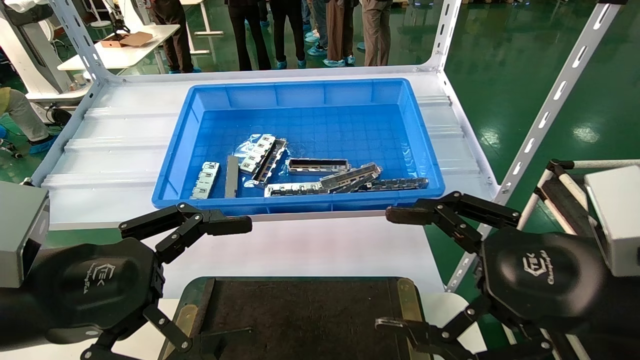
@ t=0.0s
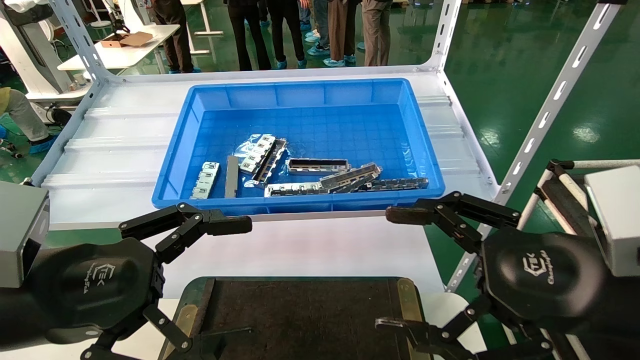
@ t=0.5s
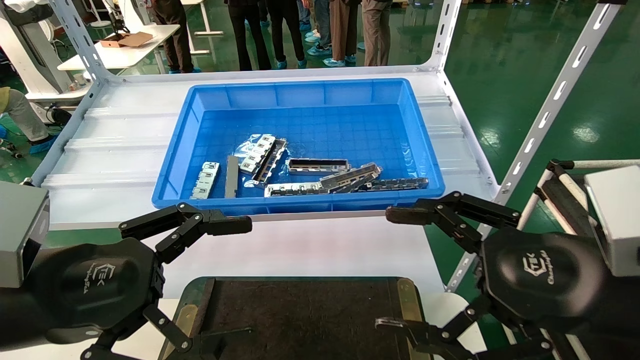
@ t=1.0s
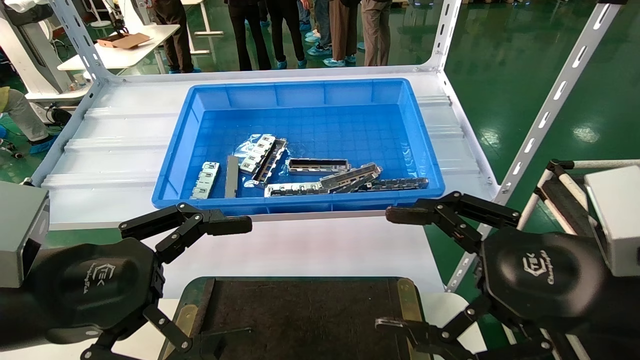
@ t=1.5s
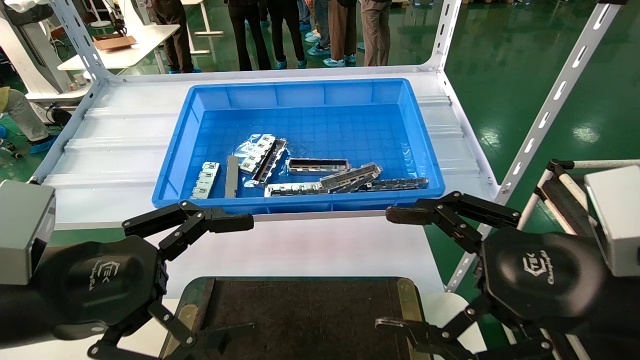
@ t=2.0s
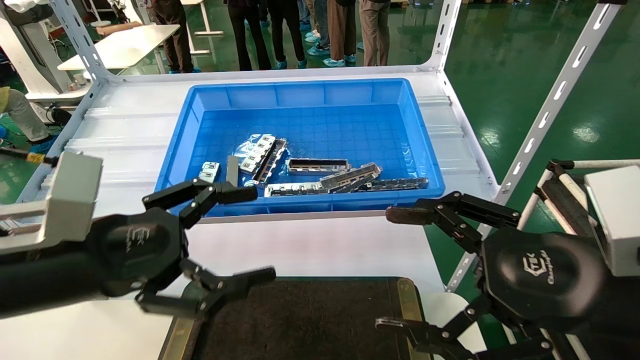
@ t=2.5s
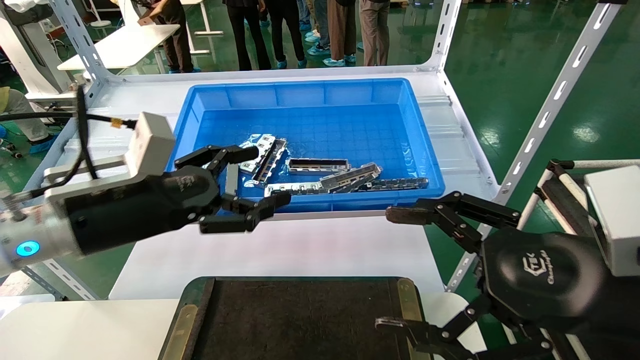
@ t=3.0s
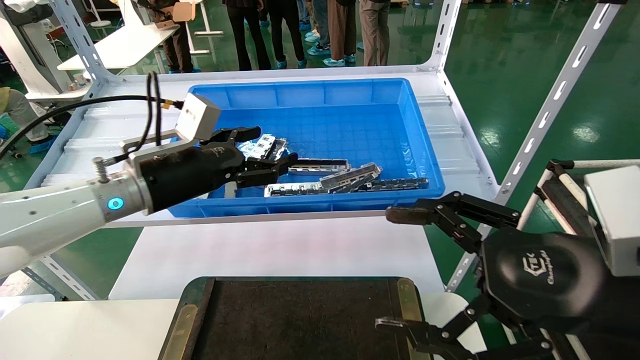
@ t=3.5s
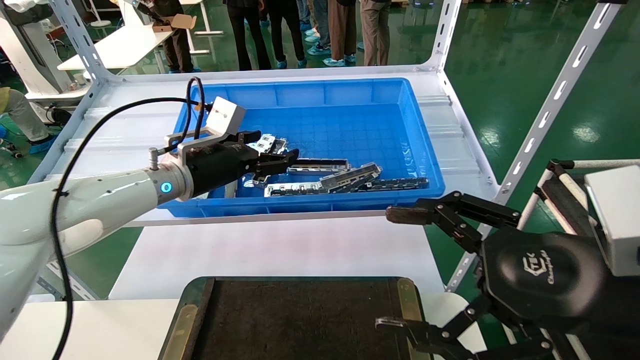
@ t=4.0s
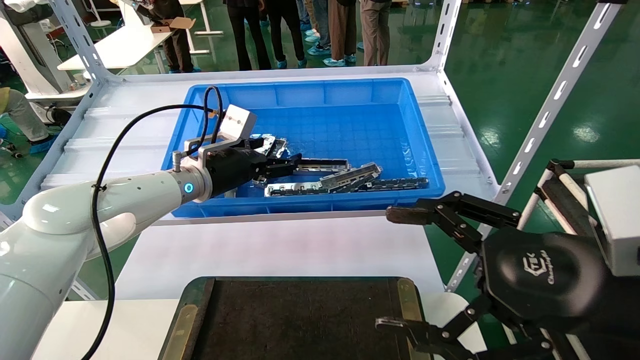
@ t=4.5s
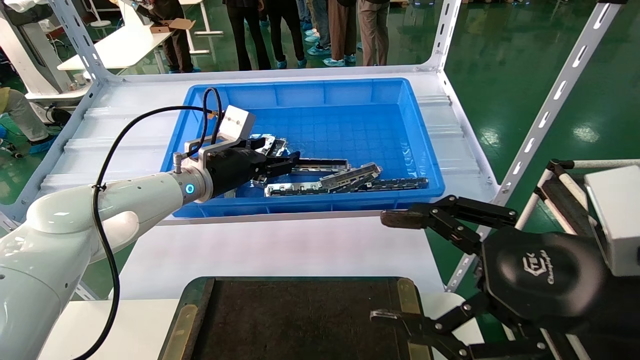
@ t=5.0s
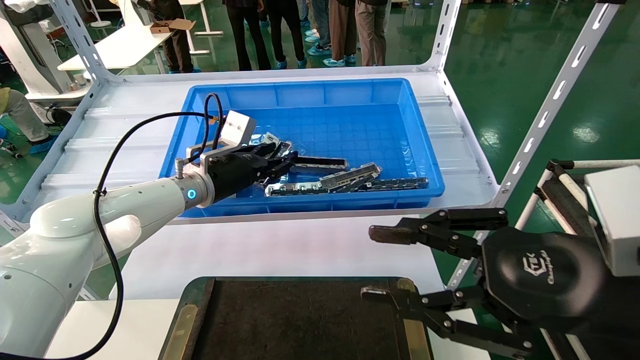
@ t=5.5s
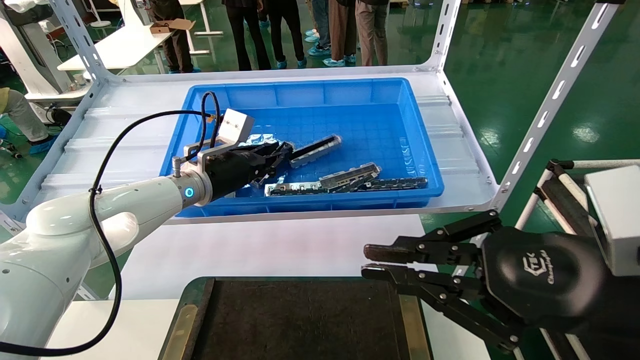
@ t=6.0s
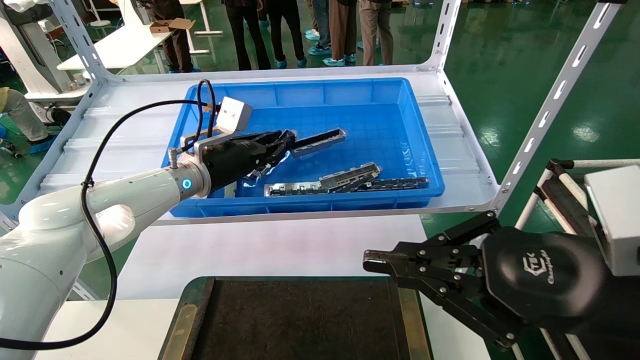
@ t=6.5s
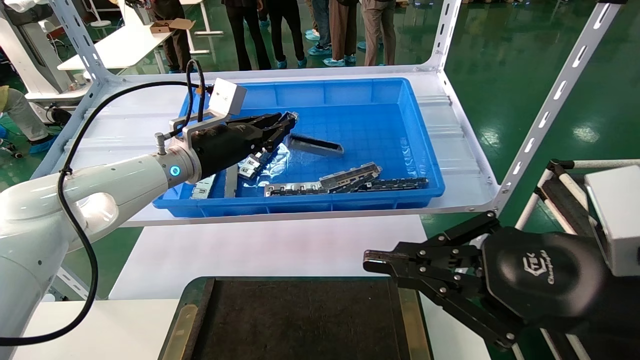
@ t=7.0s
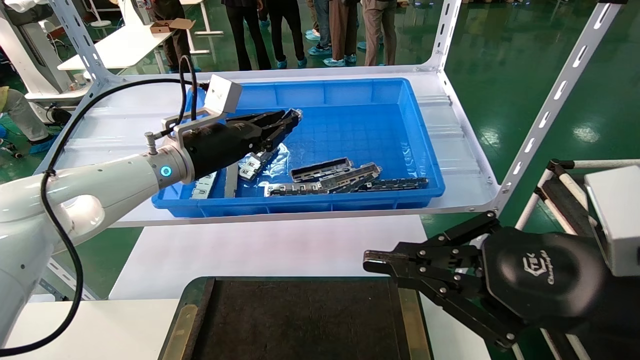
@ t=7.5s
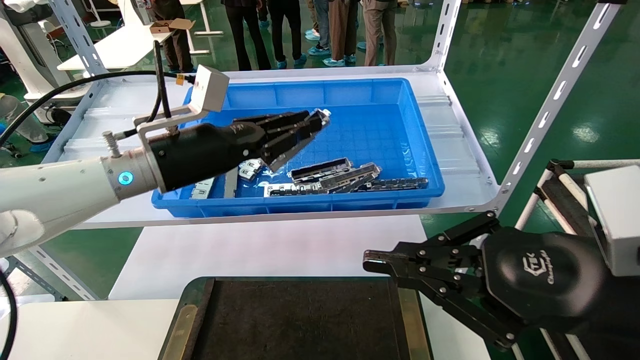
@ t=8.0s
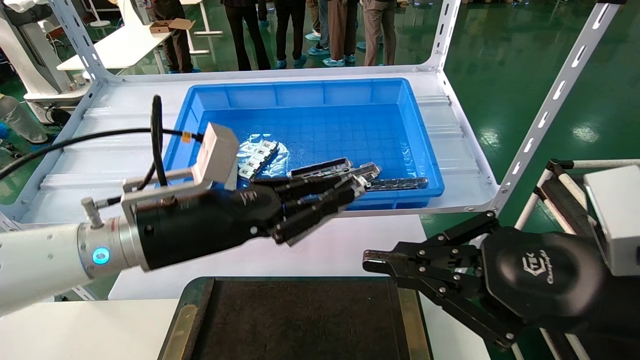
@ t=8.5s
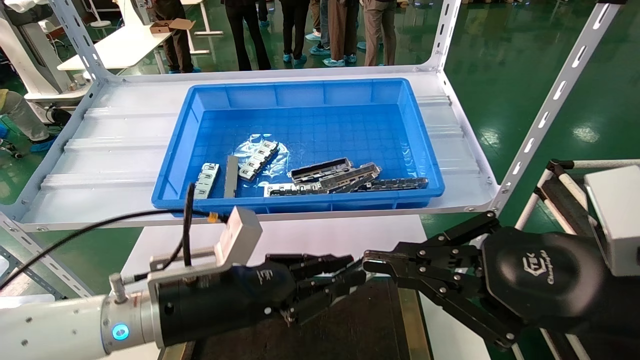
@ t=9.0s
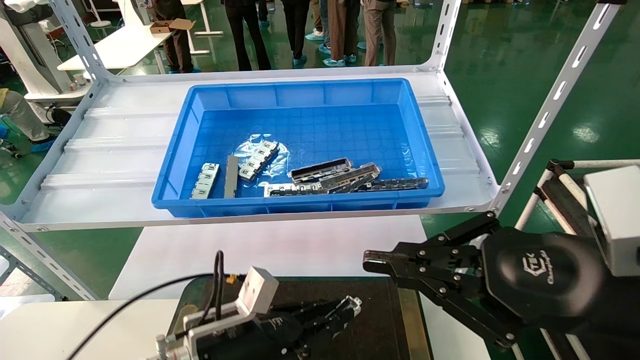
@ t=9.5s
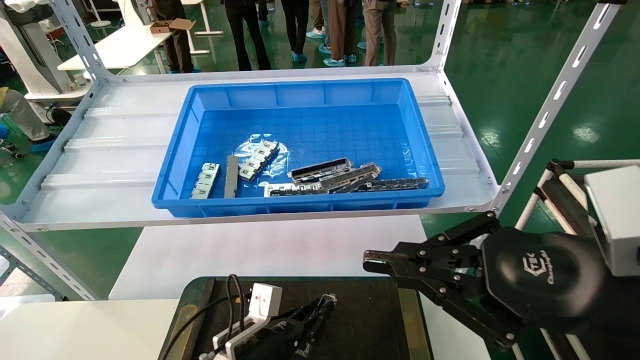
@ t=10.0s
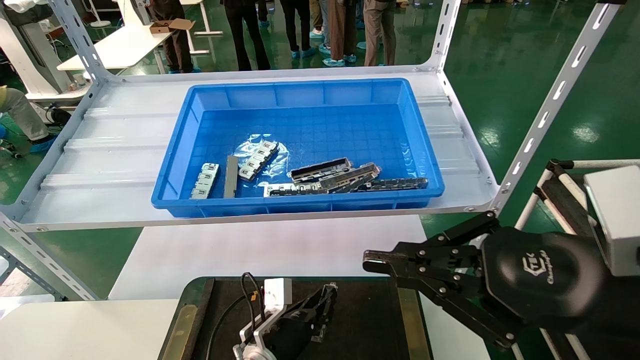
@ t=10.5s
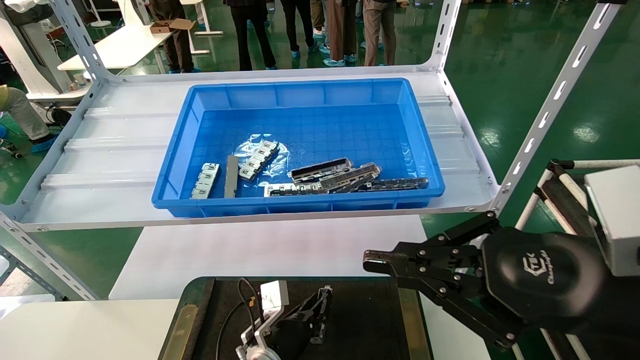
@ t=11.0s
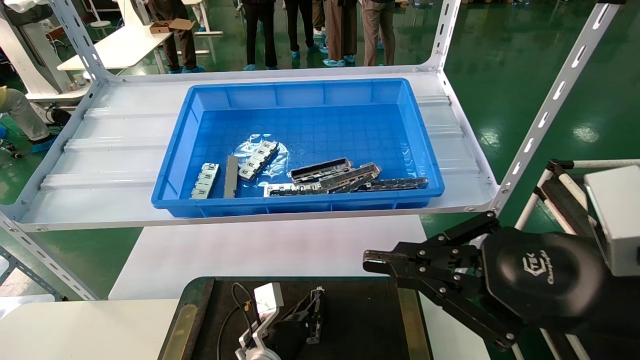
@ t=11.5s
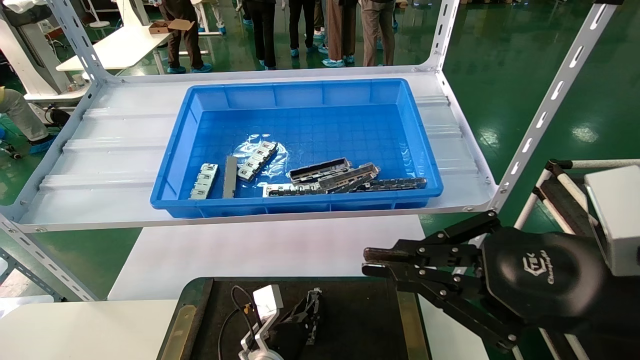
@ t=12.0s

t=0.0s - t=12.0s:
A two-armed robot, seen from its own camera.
Task of the whole recording: Grasp the part with one hand and place it on the black container.
Step, t=2.5s - t=5.5s: Pick up the front USB bracket from the feeding area.
t=0.0s - t=2.0s: Both grippers stay about where they are.
t=2.0s - t=4.0s: The left gripper moves forward, roughly 25 cm.
t=4.0s - t=6.0s: The right gripper closes its fingers. Meanwhile the left gripper closes its fingers.
t=6.0s - t=8.0s: The left gripper moves backward and upward, approximately 10 cm.
t=8.0s - t=10.0s: The left gripper shifts about 30 cm downward.
t=10.0s - t=12.0s: The left gripper moves downward, roughly 5 cm.

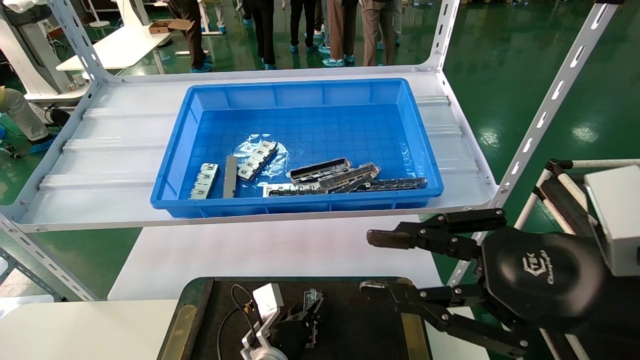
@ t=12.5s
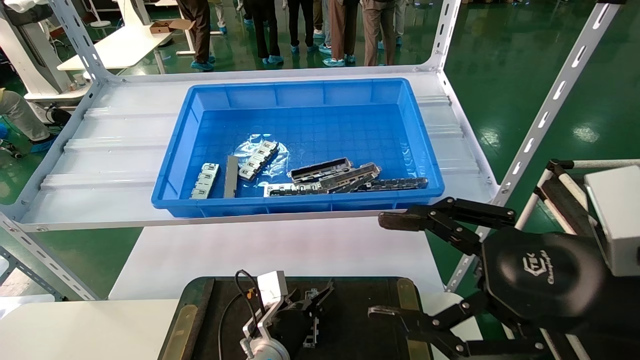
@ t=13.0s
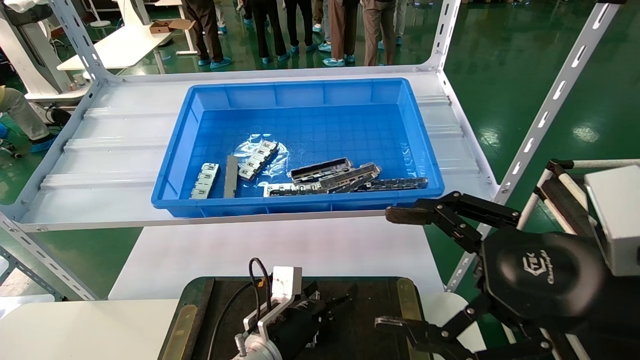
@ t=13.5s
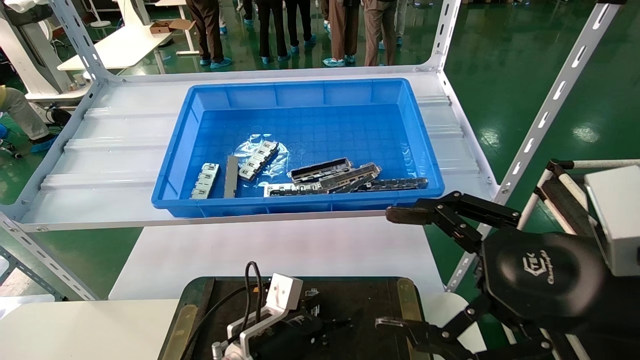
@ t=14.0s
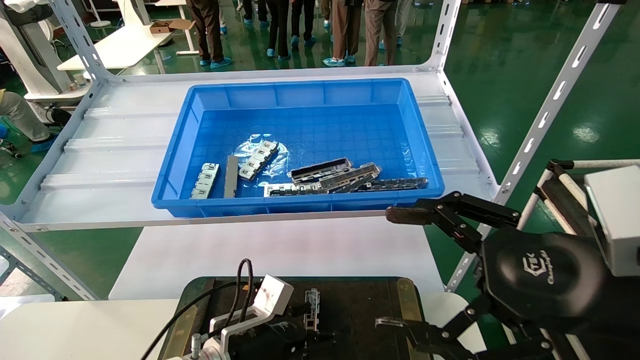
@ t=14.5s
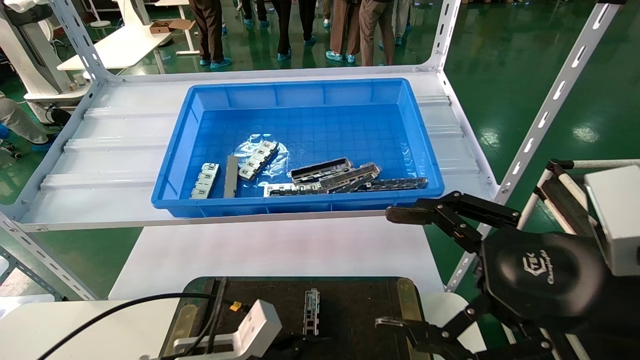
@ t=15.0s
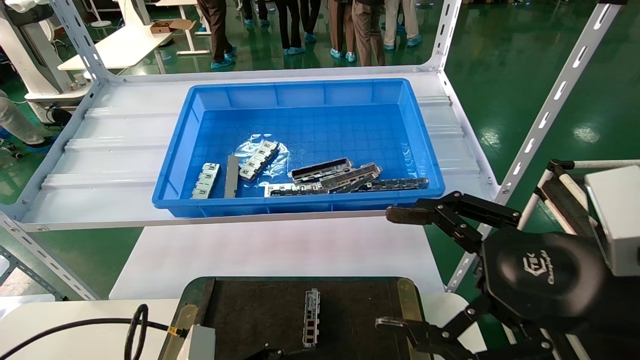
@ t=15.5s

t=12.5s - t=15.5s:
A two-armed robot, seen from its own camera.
Task of the whole recording: Grasp the part with one hand and place it on the black container.
t=12.5s - t=14.0s: The left gripper shifts roughly 10 cm upward and backward, and opens up; the right gripper opens.
t=14.0s - t=15.5s: The left gripper heads backward and to the left, covering roughly 15 cm.

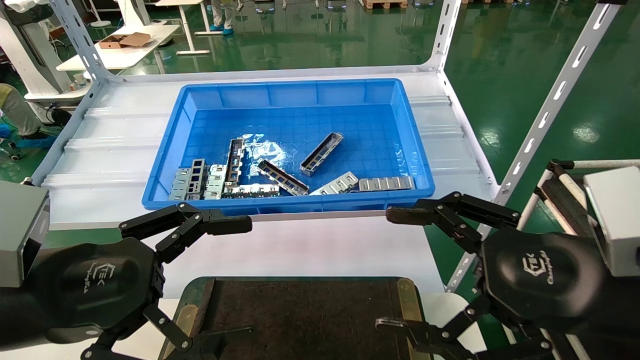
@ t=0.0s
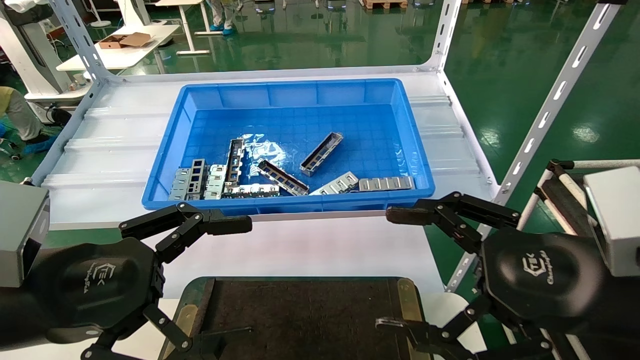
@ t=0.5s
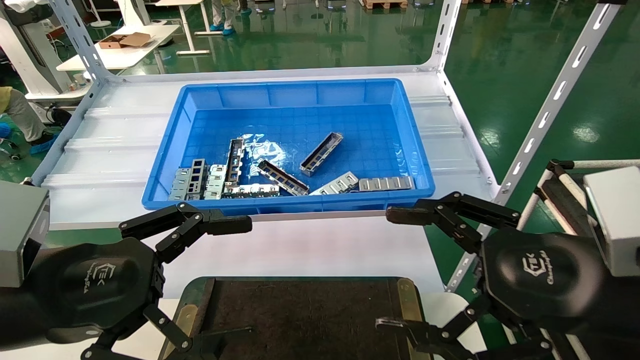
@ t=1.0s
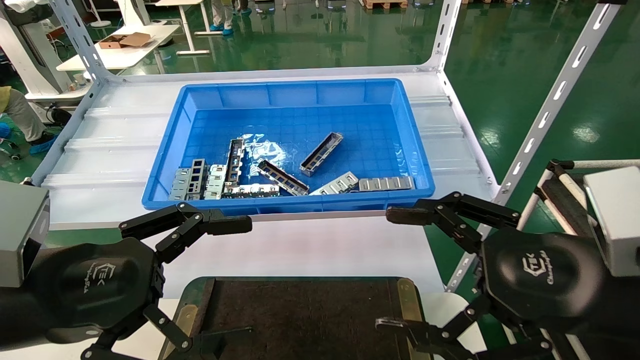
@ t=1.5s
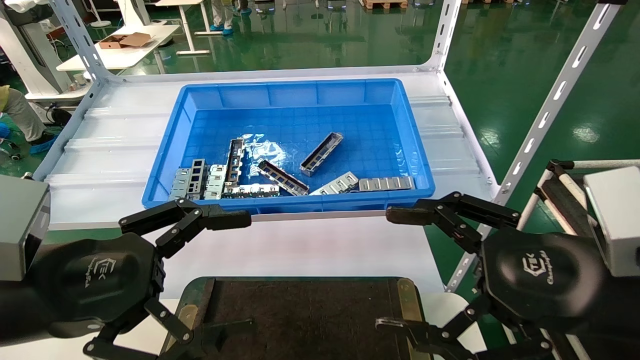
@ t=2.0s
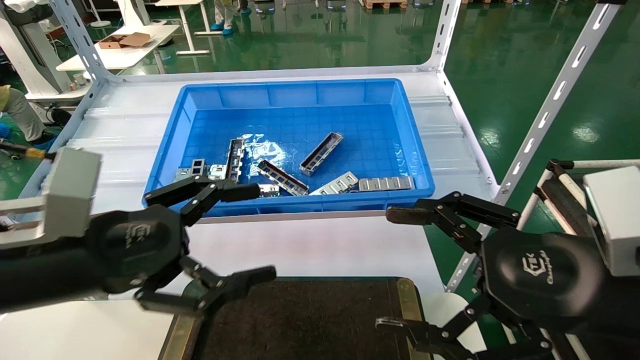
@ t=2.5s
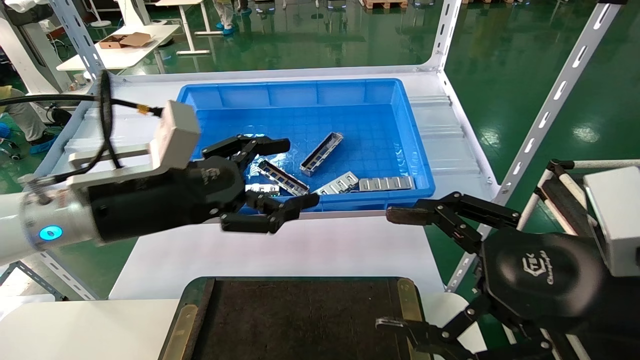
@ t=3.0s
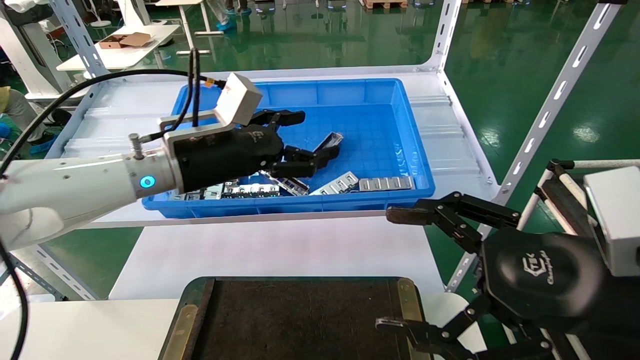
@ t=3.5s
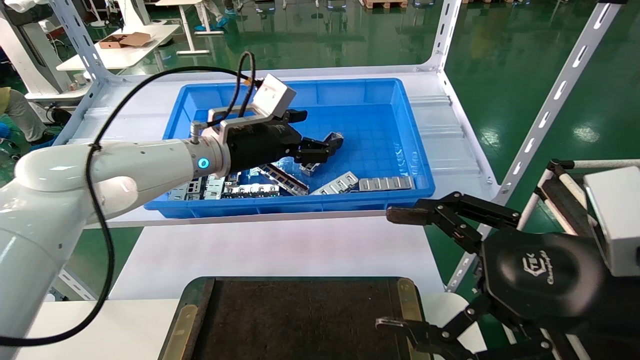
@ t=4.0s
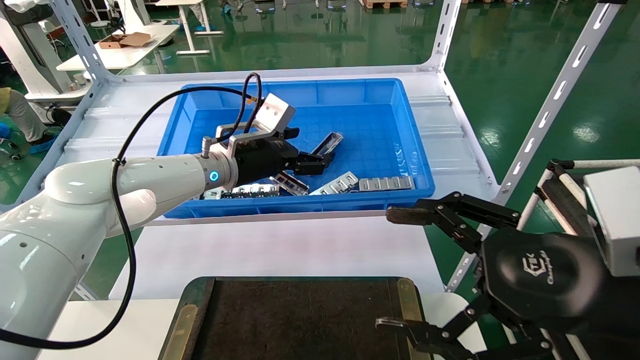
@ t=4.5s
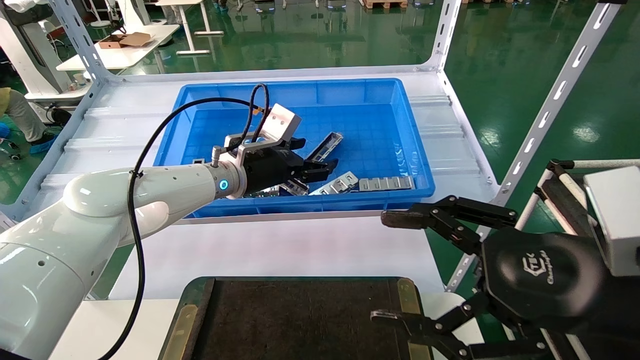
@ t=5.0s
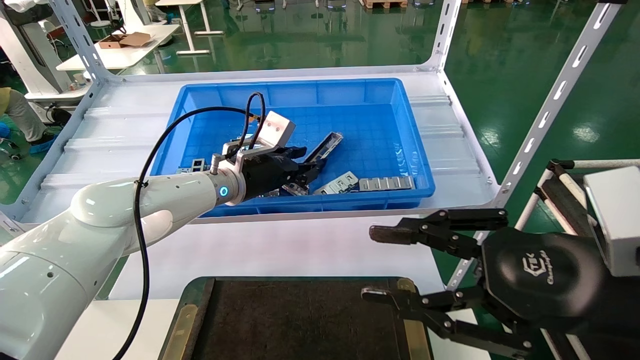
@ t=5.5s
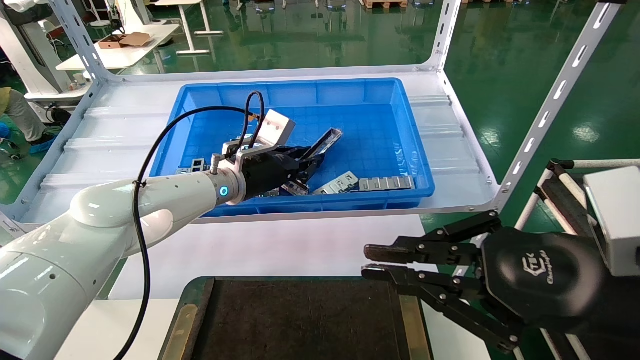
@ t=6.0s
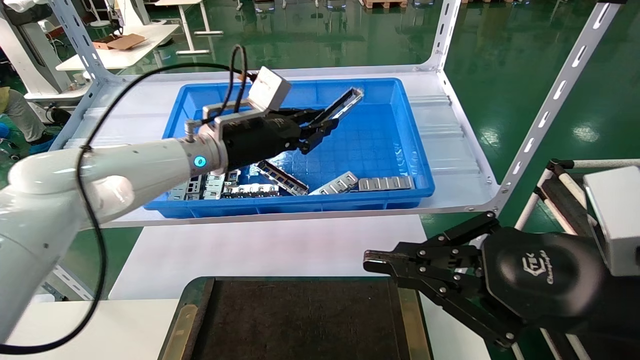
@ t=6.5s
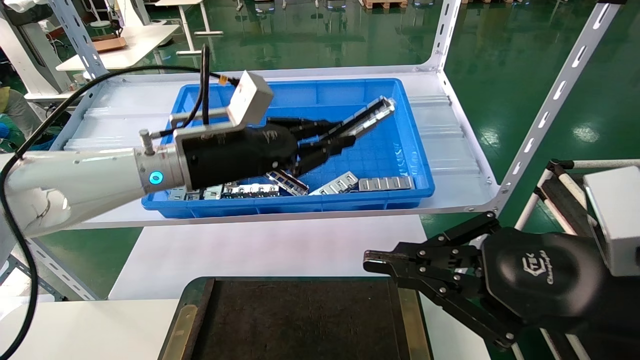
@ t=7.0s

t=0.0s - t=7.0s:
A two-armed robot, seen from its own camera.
Task of the whole recording: Grasp the part with one hand and place it on the black container.
Step, t=2.5s - t=5.5s: Pick up the front USB bracket from the feeding area.
t=0.0s - t=2.0s: Both grippers stay about where they are.
t=2.0s - t=3.5s: The left gripper is displaced forward and to the right by about 20 cm.
t=3.5s - t=5.0s: The left gripper shifts approximately 10 cm forward.
t=5.0s - t=7.0s: The left gripper shifts roughly 10 cm backward, and closes, while the right gripper closes up.
